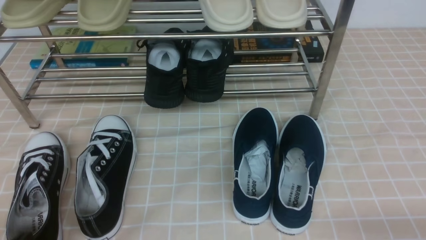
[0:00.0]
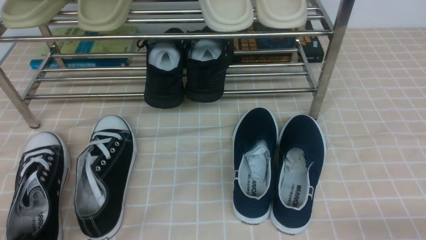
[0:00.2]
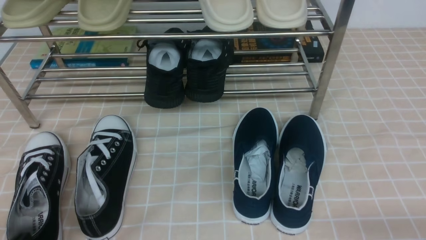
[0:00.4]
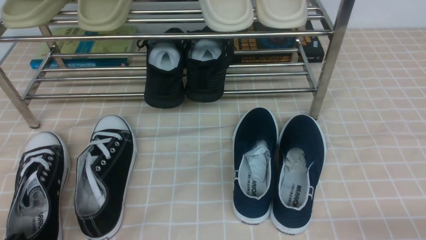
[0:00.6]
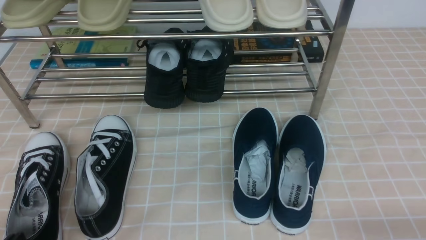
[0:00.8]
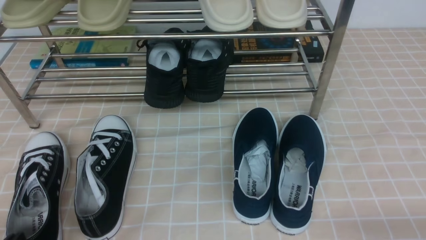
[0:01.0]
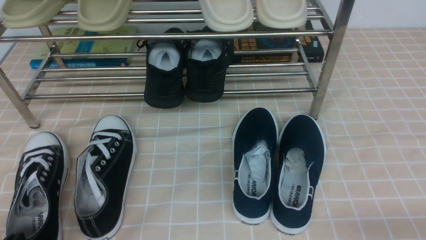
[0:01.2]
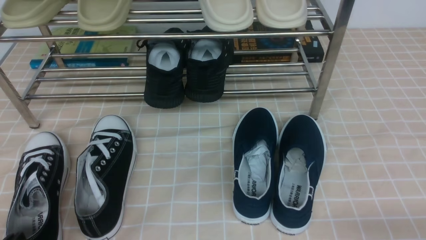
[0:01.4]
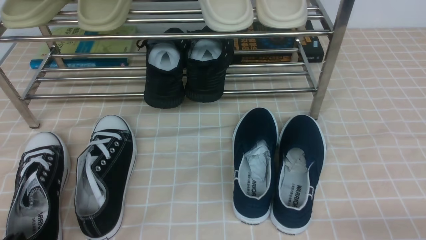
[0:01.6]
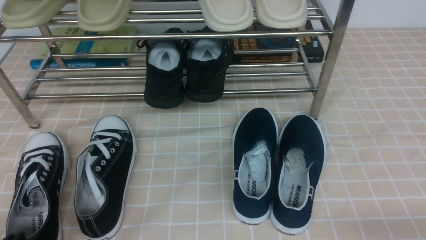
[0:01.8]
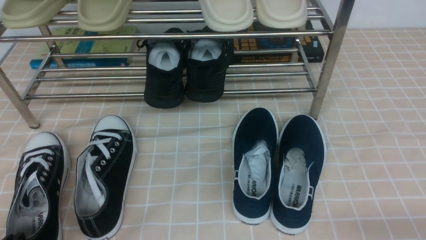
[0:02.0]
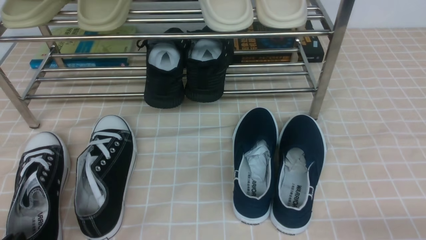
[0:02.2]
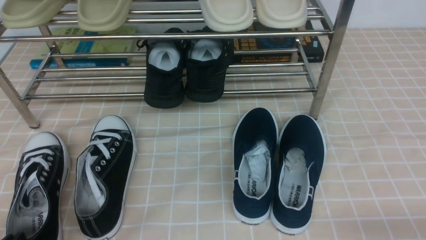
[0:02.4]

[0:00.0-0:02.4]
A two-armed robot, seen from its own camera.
0:00.0 to 0:02.4: The two grippers keep their place.

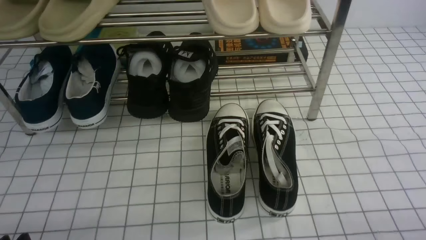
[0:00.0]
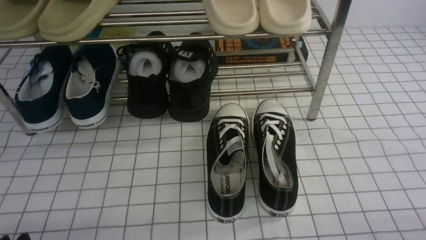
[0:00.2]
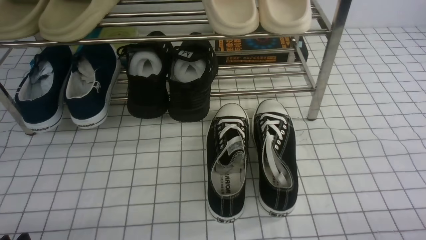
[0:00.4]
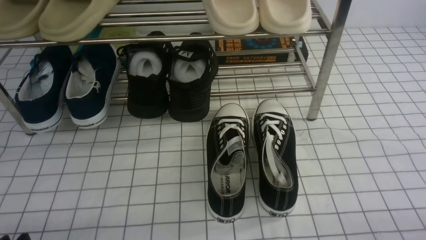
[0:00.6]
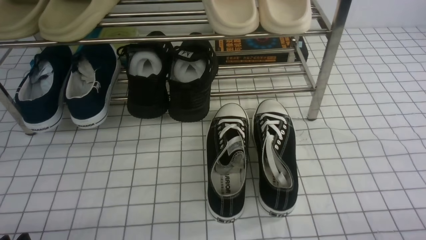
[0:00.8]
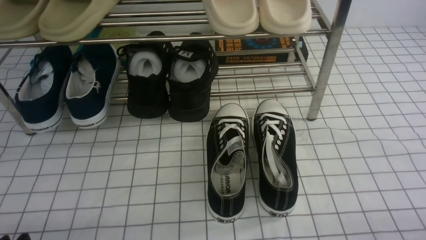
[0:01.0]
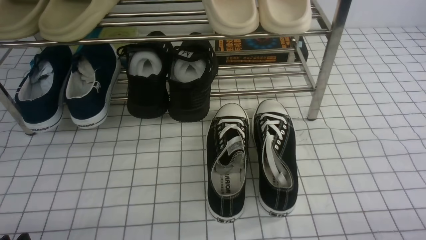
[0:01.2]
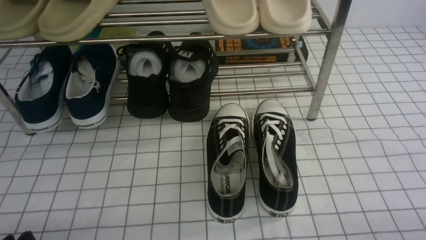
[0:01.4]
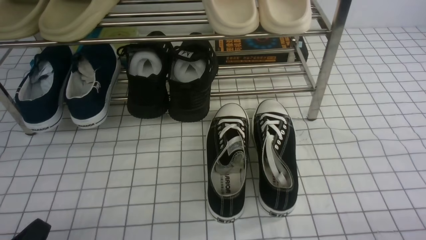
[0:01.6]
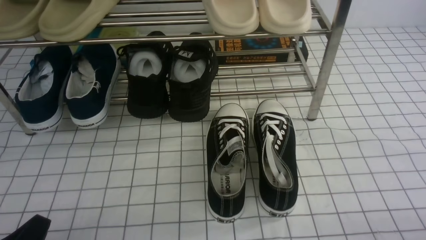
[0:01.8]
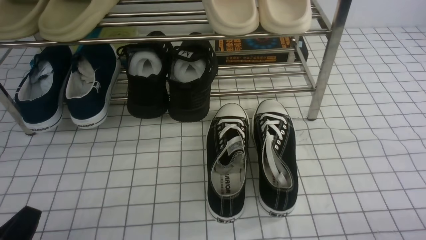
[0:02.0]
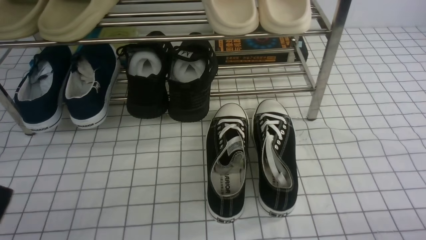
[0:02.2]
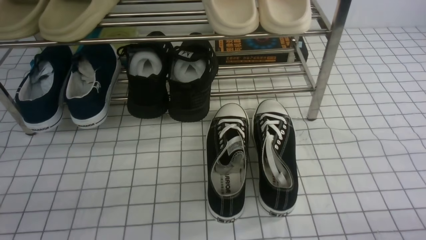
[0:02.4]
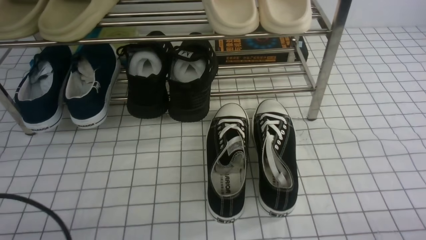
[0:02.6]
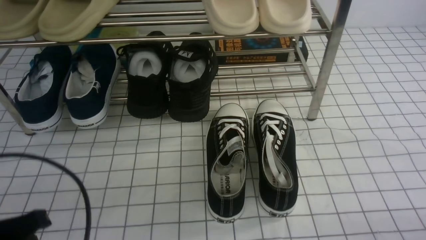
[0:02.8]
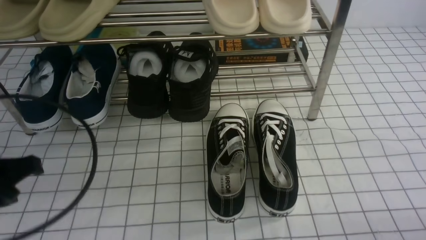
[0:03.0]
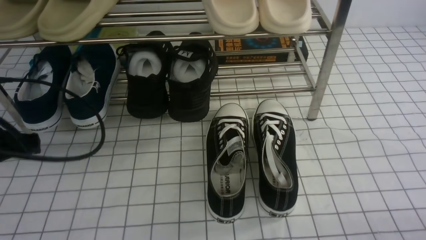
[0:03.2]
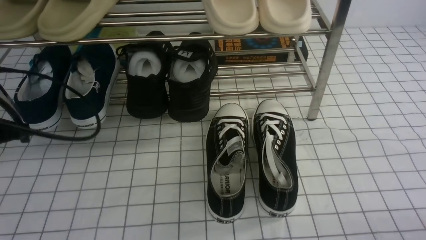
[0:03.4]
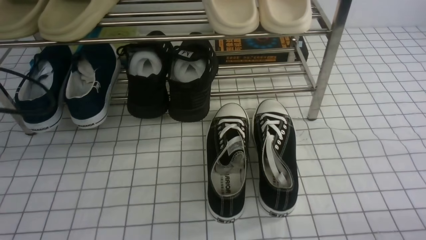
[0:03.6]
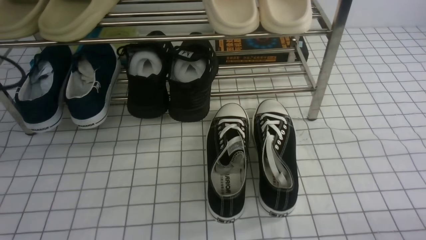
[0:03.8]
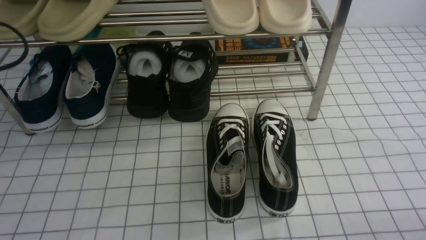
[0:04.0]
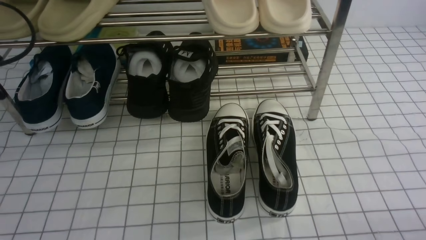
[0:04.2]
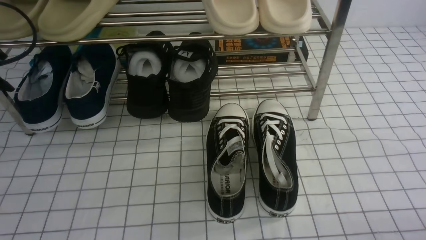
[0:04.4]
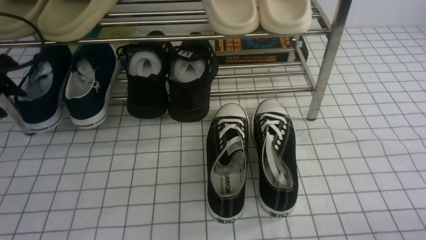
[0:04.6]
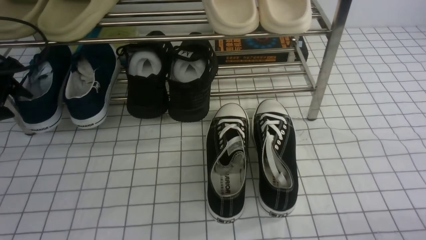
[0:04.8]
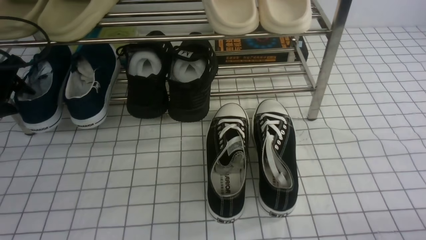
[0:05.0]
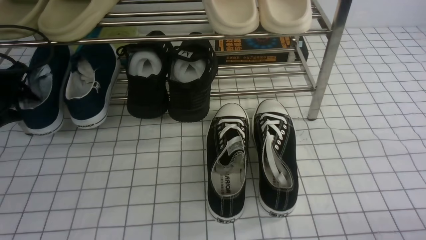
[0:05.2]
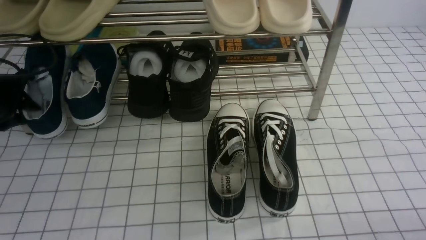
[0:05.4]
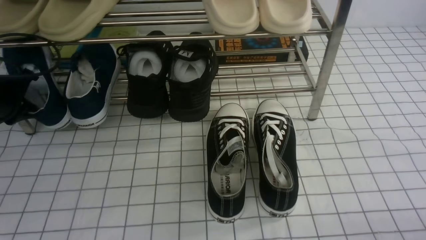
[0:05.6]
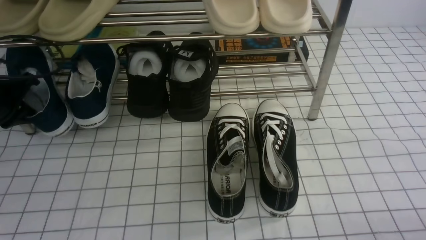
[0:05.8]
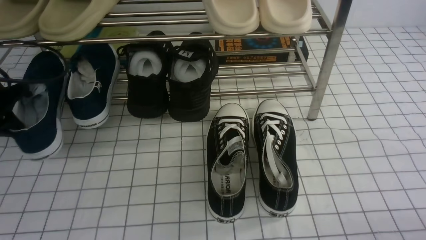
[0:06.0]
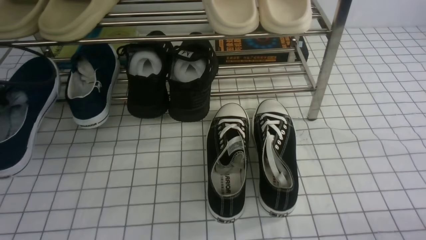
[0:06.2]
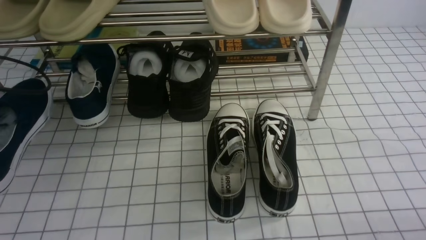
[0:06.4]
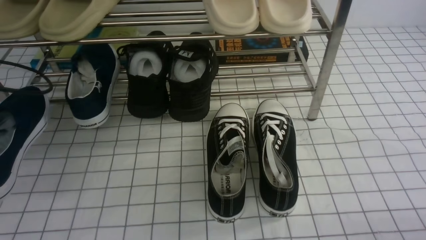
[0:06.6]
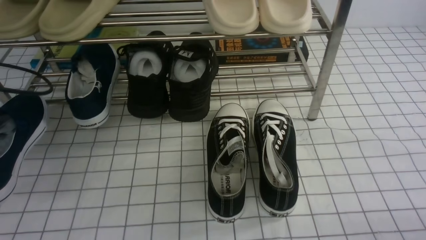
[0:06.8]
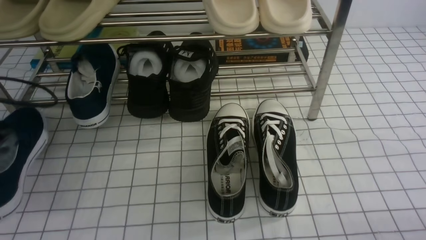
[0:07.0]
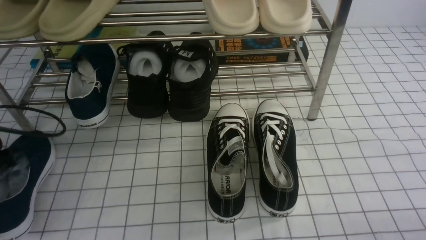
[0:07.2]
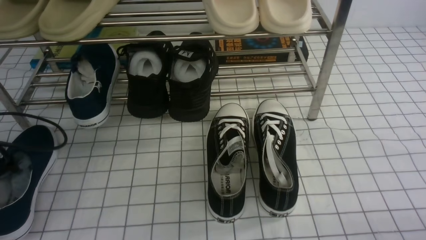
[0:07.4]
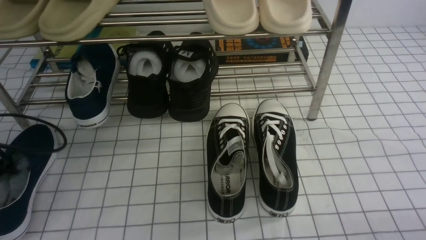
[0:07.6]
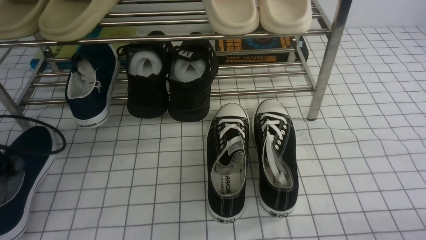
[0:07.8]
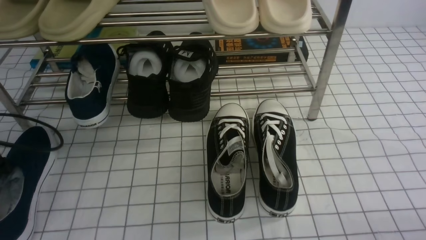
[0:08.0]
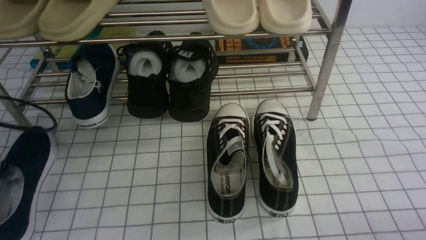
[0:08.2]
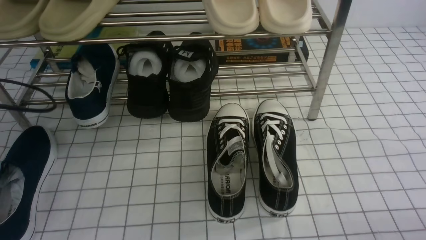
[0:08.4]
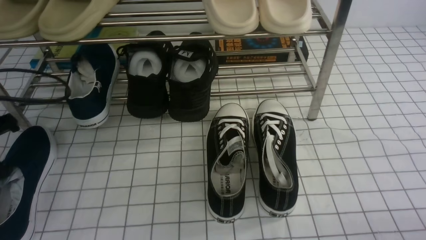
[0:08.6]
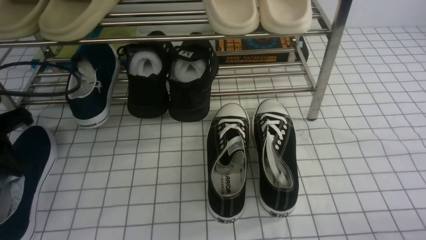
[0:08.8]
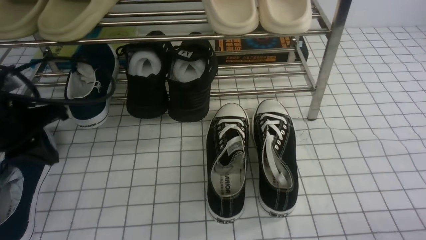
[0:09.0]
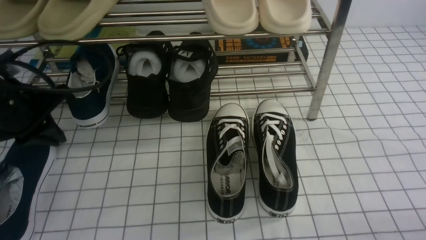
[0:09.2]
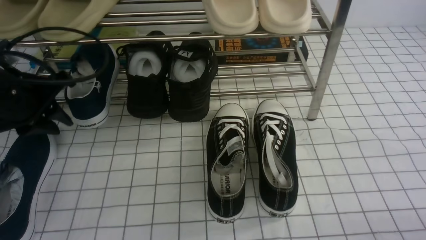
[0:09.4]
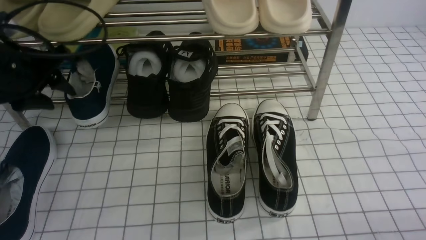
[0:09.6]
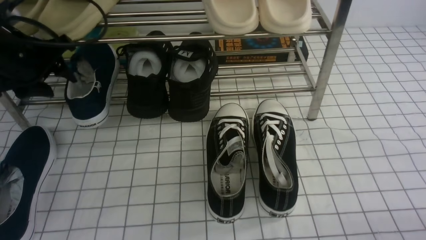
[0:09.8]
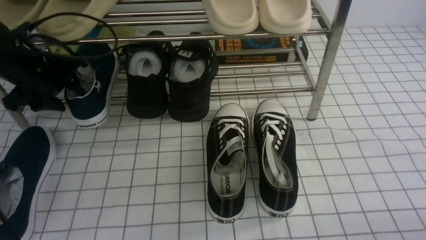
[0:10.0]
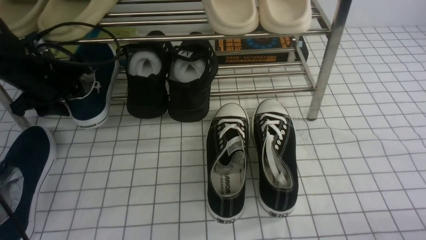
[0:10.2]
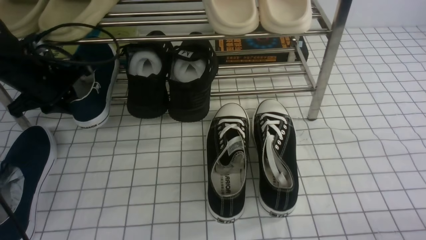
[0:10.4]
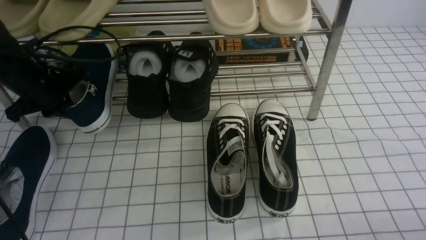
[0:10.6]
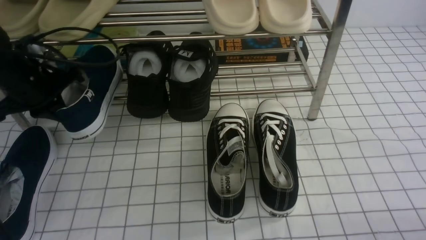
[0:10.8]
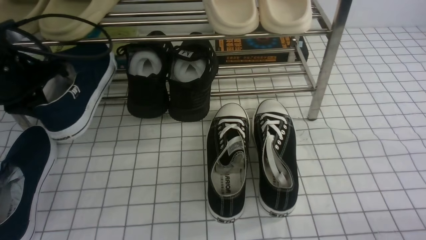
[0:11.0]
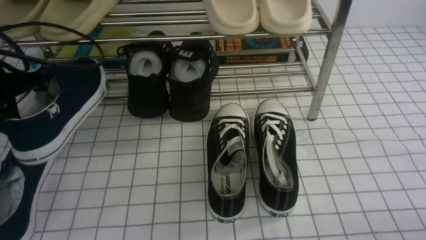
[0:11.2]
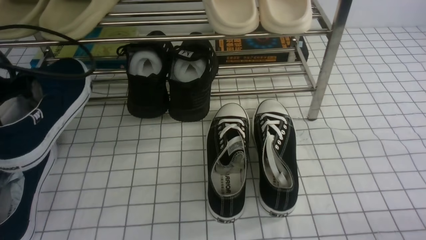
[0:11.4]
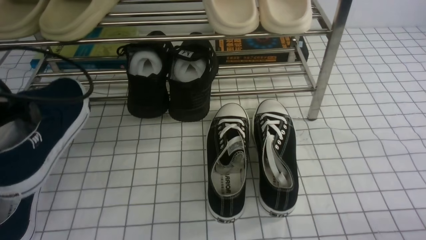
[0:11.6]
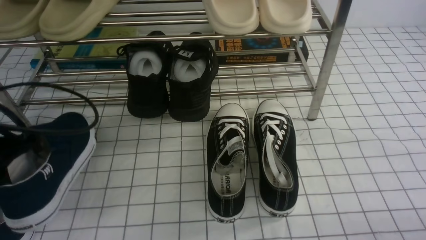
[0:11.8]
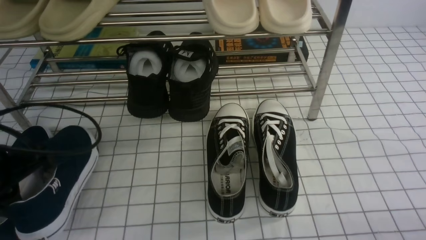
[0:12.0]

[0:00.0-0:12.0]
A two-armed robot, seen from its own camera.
Step, 0:00.0 to 0:05.4: use the left arm to clamp a shoe on the left side of the shoe rack.
Step, 0:05.6 to 0:08.2: Use your left arm to remove the clamped shoe from the shoe rack and put it down.
Step, 0:08.4 to 0:10.4: use the left arm to clamp a shoe on the left side of the shoe rack.
0:01.6 to 0:03.0: The left gripper goes approximately 15 cm upward and forward, and closes up.
0:03.0 to 0:04.4: The left gripper moves forward and to the left, roughly 15 cm, and opens.
0:04.4 to 0:06.0: The left gripper closes up.
0:06.0 to 0:07.6: The left gripper heads backward, covering approximately 10 cm.
0:07.6 to 0:09.0: The left gripper travels to the right and upward by roughly 10 cm, and opens and closes again.
0:09.0 to 0:10.4: The left gripper shifts roughly 10 cm forward, and opens, then closes again.
0:10.4 to 0:12.0: The left gripper is displaced backward by some 15 cm.

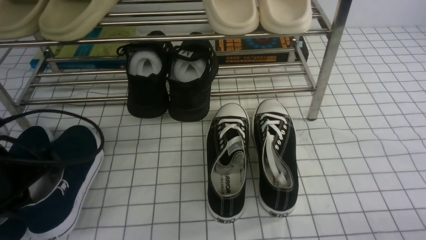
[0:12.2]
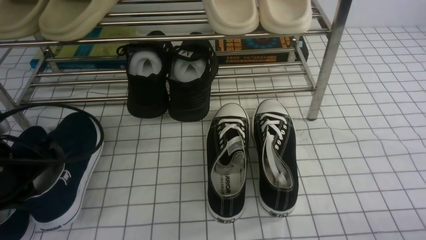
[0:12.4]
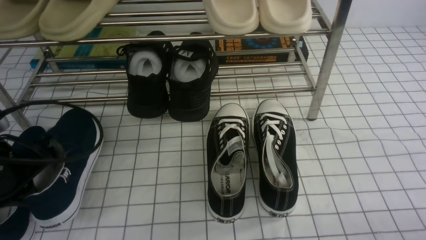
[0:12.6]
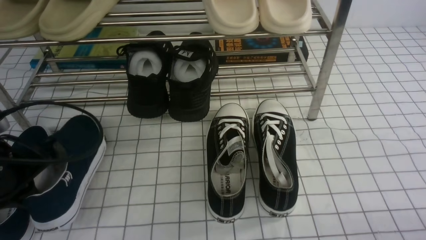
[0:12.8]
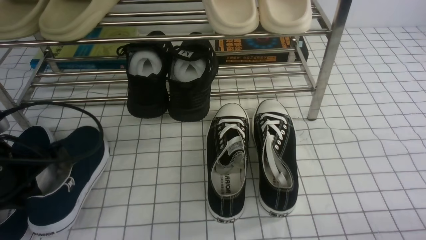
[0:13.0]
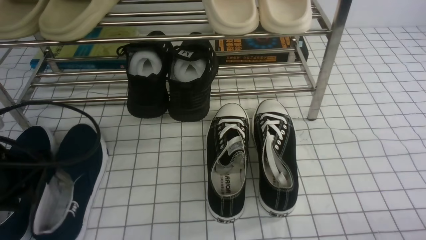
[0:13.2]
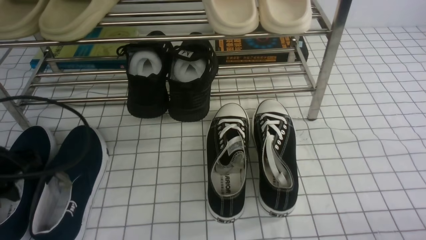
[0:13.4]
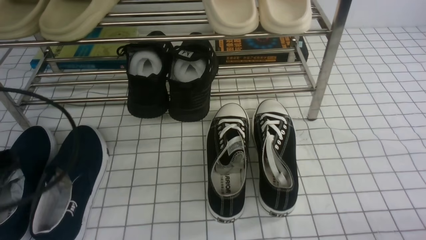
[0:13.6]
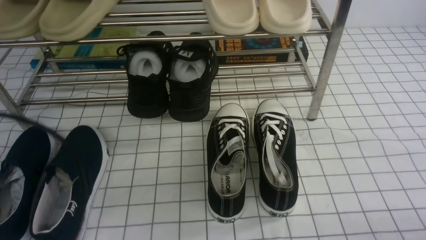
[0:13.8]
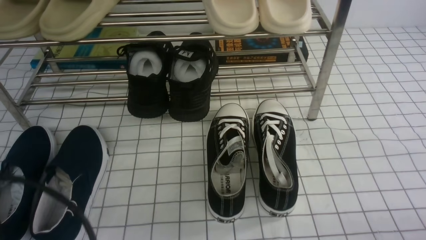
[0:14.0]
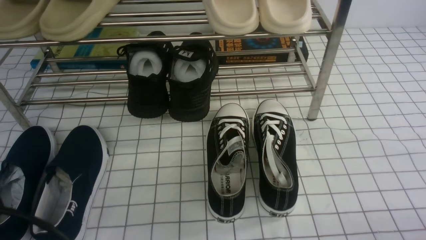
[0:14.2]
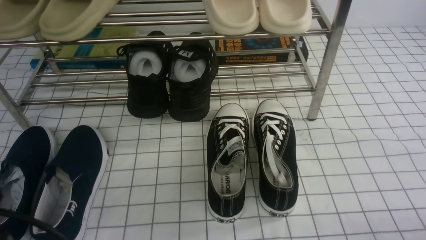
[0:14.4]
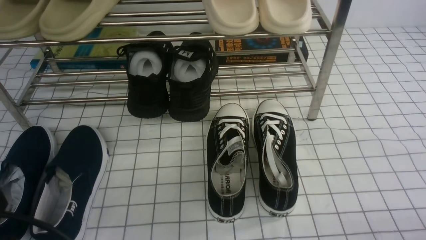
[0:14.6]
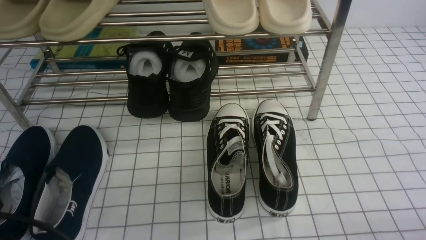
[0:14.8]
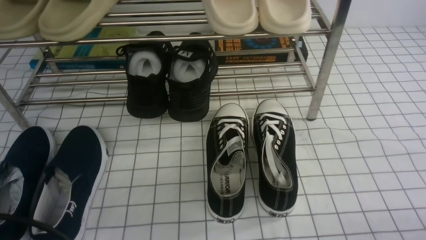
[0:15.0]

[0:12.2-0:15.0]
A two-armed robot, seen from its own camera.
0:12.2 to 0:13.6: The left gripper heads backward and upward, covering roughly 10 cm.
0:13.6 to 0:15.0: The left gripper heads backward, covering roughly 10 cm.
